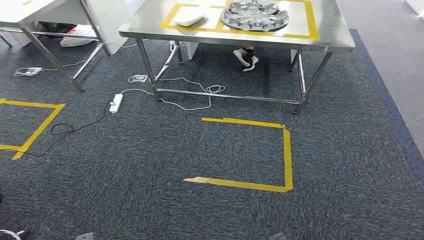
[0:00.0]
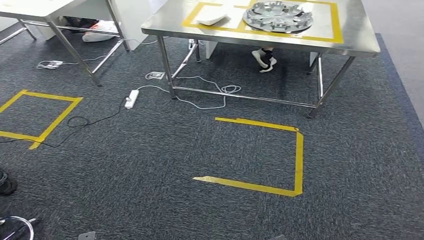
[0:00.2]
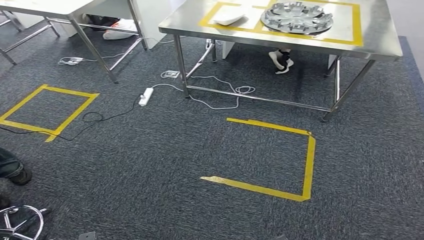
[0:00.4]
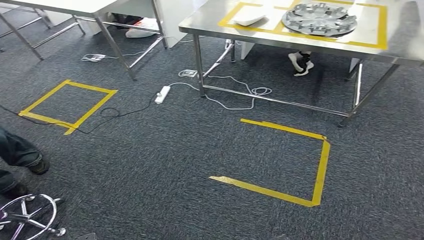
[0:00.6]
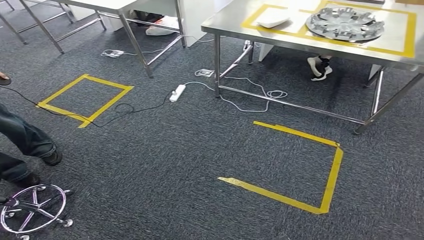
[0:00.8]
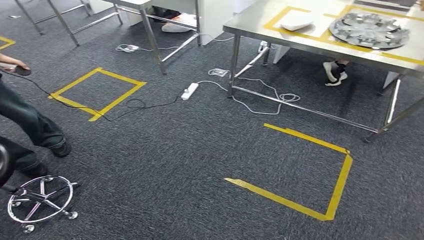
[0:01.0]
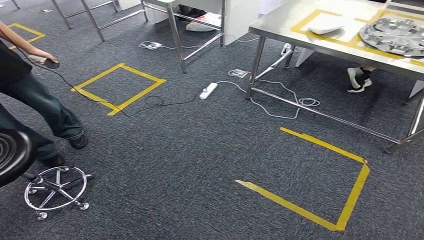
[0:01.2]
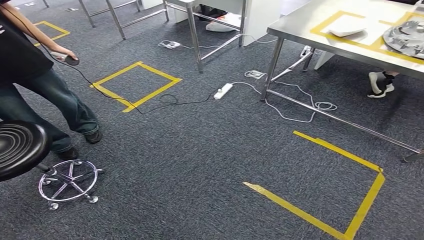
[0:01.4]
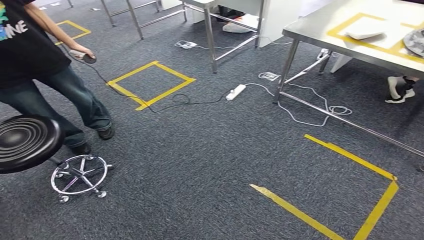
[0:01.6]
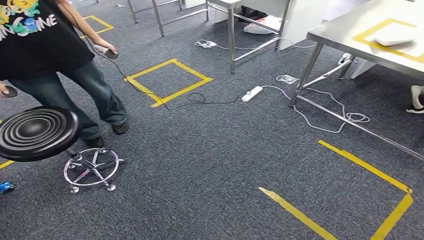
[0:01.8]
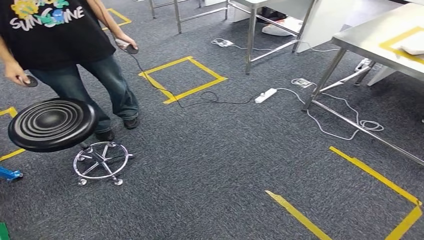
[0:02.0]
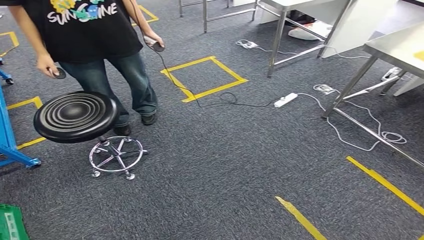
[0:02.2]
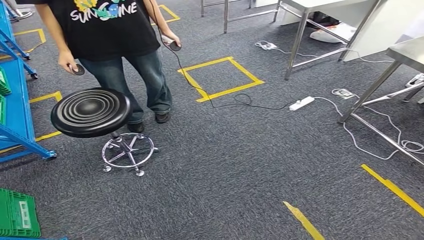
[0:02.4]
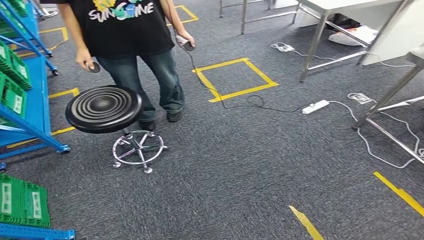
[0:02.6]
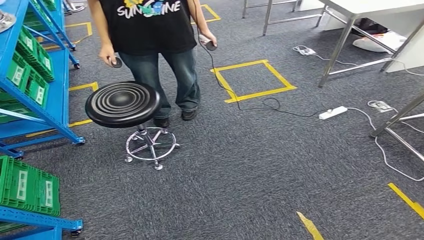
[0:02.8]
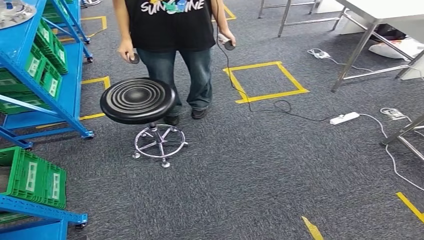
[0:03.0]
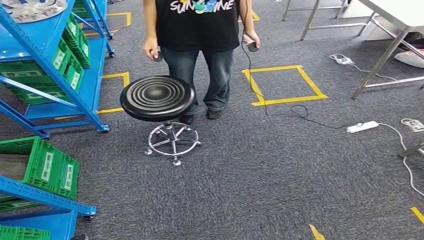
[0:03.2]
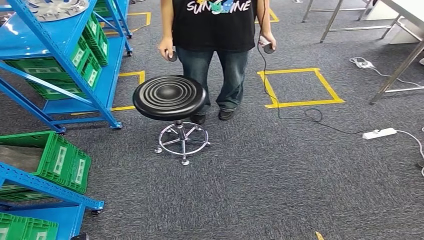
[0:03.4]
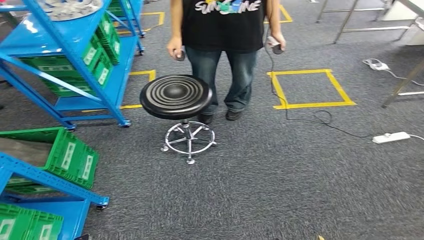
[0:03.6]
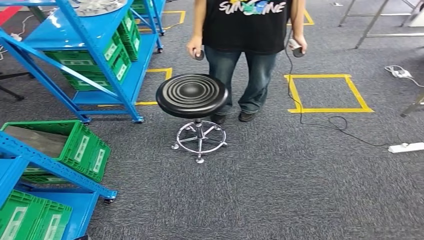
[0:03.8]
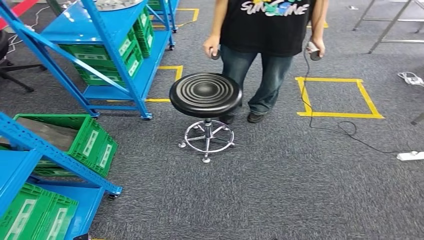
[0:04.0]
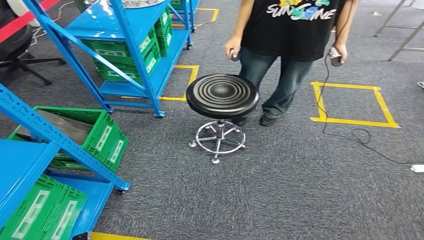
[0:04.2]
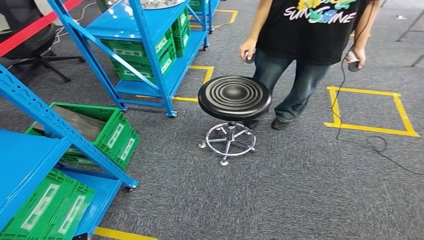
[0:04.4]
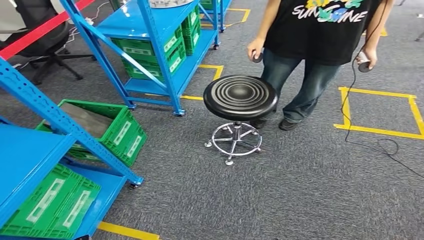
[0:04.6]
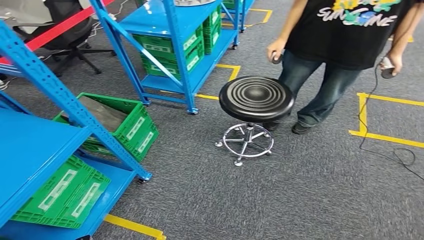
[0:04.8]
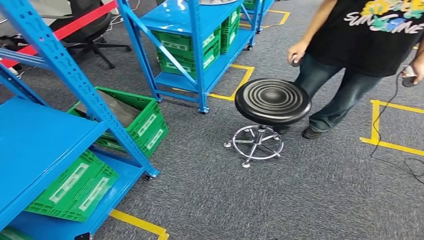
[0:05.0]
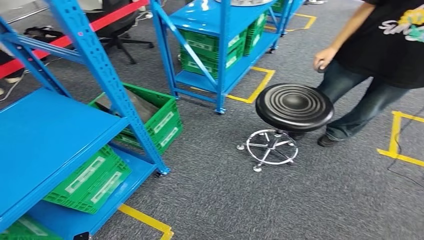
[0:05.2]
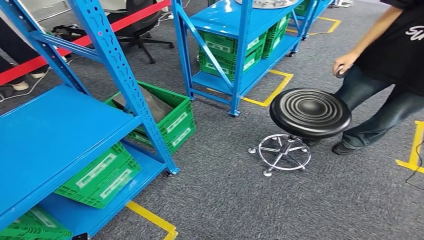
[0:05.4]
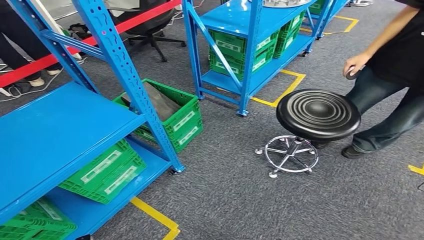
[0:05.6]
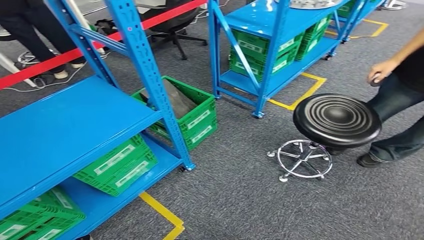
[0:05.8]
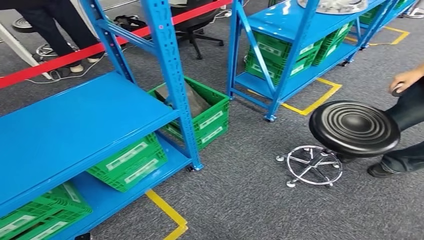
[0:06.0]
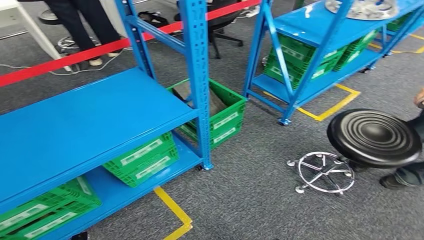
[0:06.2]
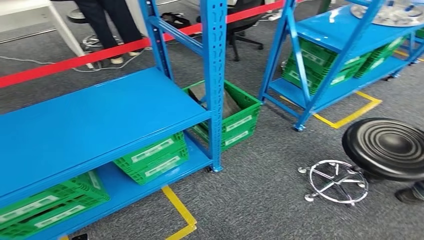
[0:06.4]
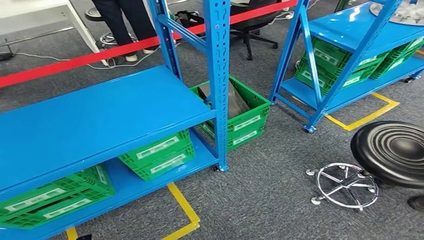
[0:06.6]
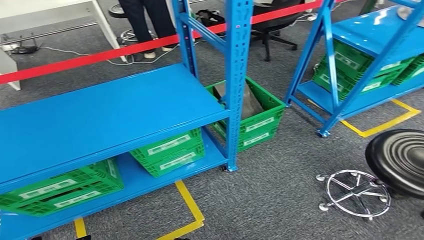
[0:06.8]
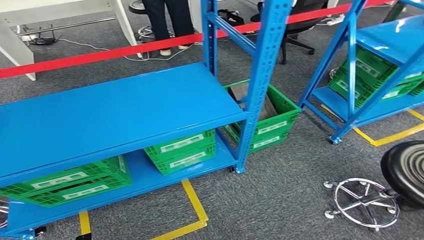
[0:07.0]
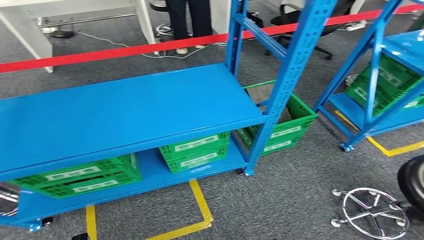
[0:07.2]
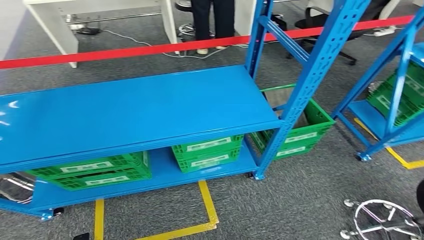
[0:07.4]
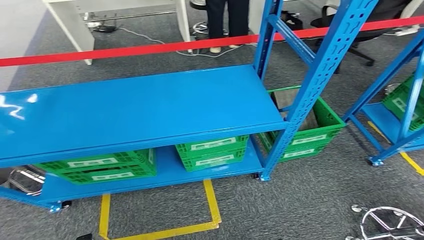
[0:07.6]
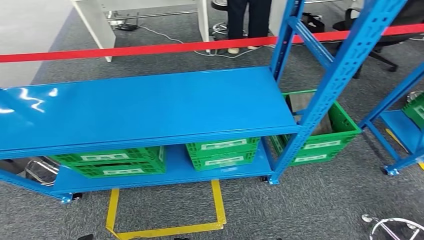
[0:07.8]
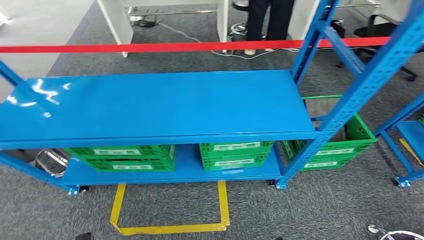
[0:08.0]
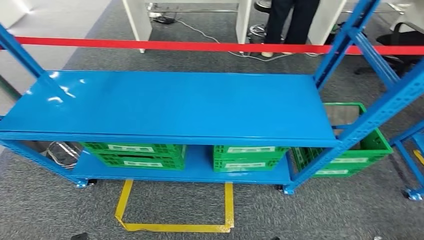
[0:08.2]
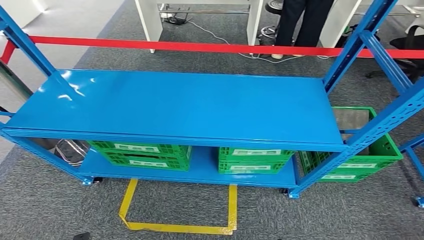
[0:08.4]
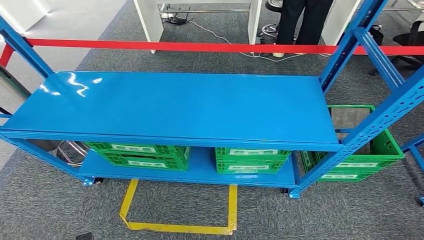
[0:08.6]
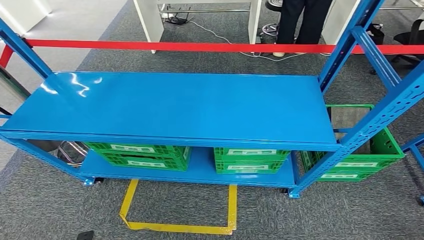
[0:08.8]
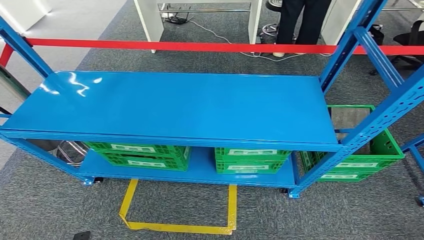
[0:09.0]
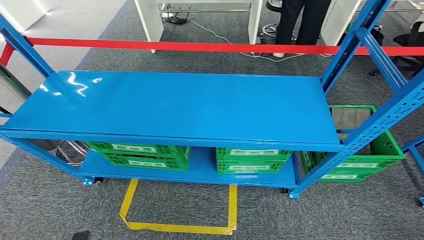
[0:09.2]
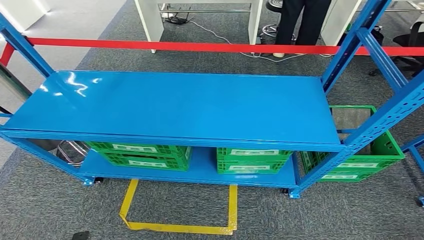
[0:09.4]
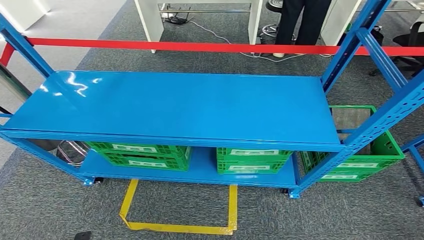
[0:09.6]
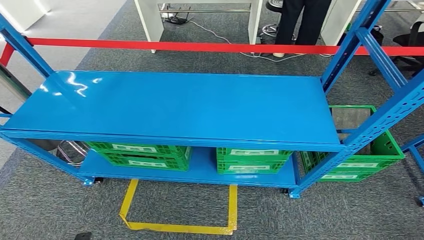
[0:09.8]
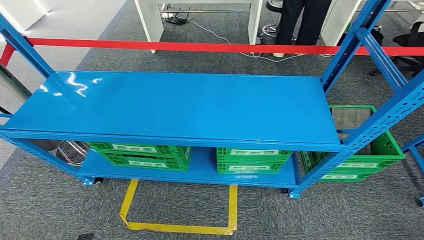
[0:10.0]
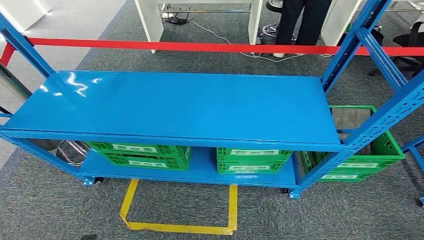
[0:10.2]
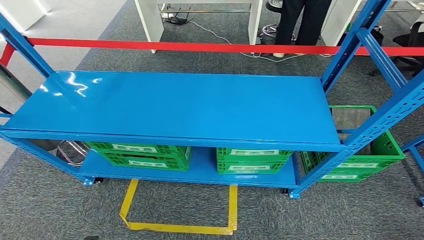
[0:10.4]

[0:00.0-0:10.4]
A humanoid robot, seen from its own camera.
Step, 0:00.0 to 0:10.4: Return to the initial position at the workbench.
0:09.0 to 0:10.4: The right hand shifts by some 5 cm.
